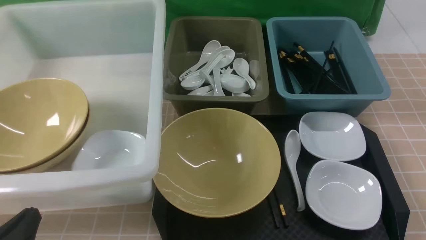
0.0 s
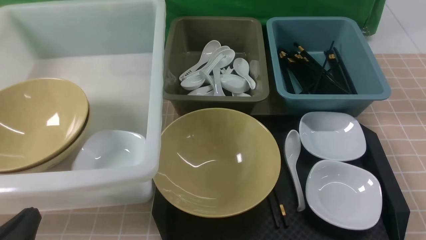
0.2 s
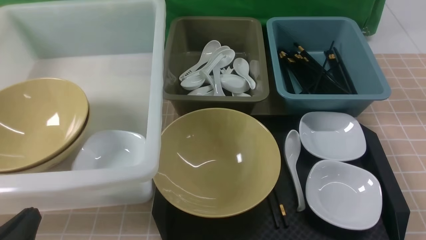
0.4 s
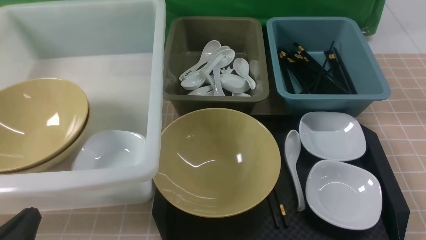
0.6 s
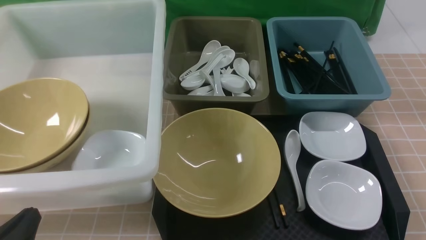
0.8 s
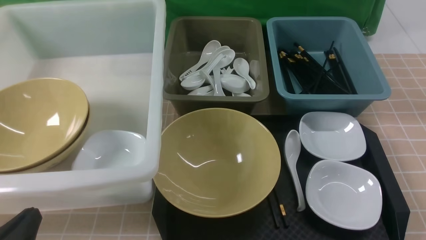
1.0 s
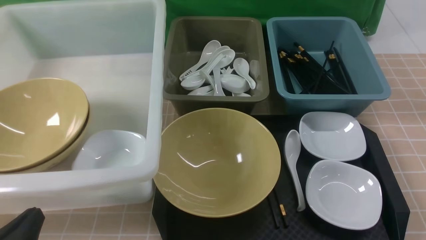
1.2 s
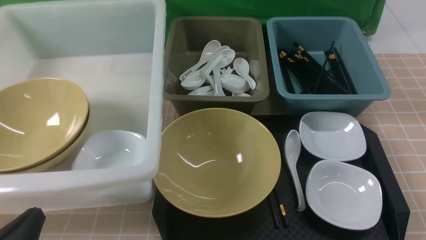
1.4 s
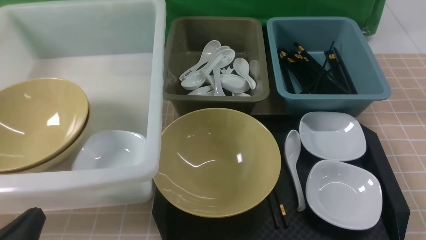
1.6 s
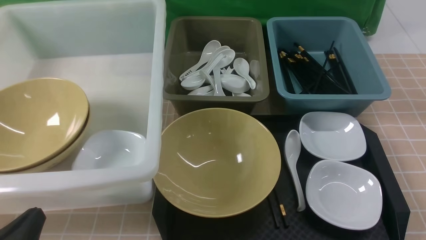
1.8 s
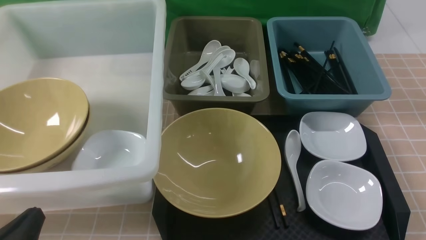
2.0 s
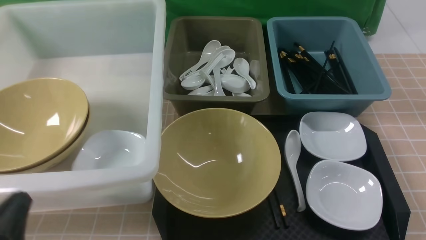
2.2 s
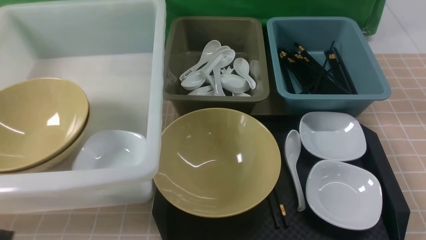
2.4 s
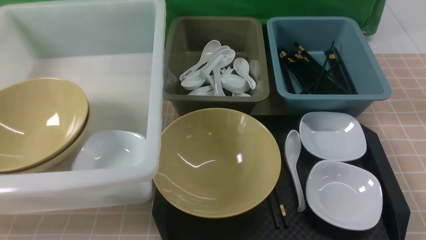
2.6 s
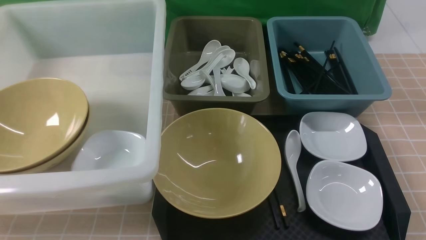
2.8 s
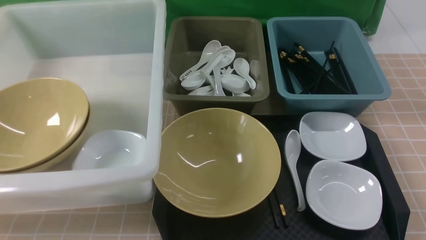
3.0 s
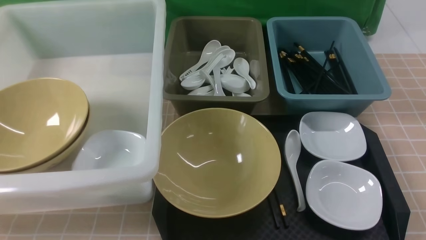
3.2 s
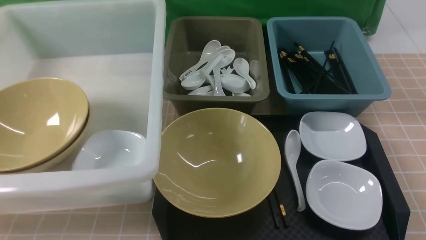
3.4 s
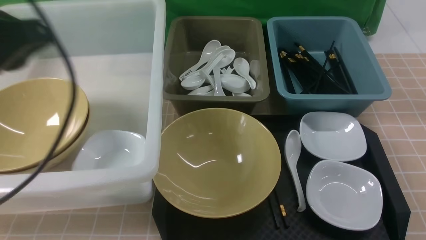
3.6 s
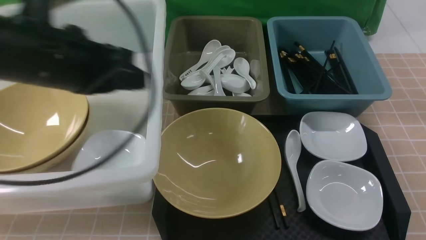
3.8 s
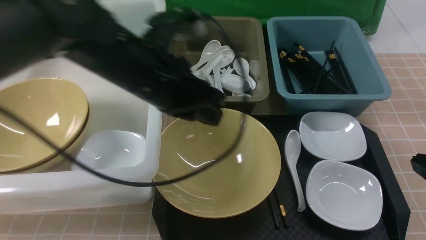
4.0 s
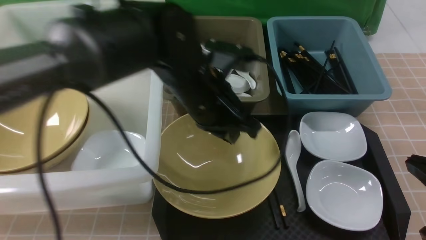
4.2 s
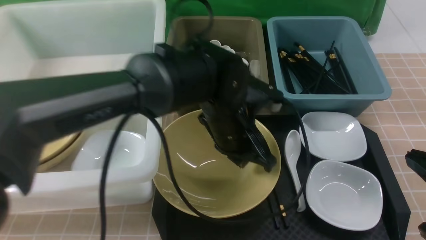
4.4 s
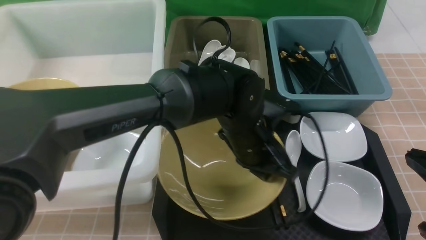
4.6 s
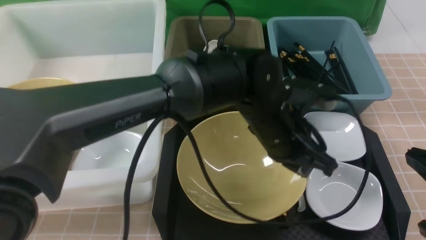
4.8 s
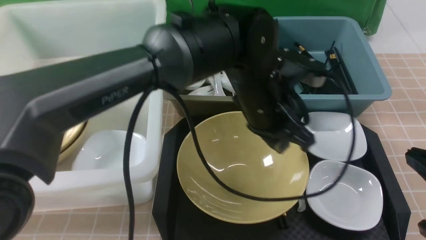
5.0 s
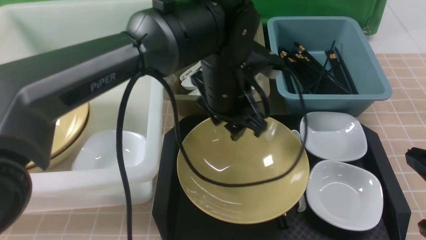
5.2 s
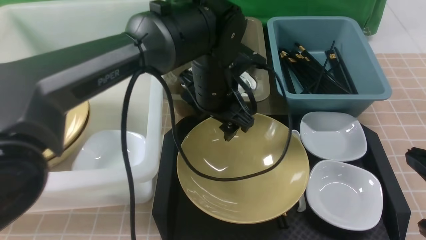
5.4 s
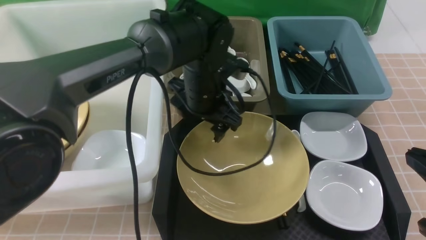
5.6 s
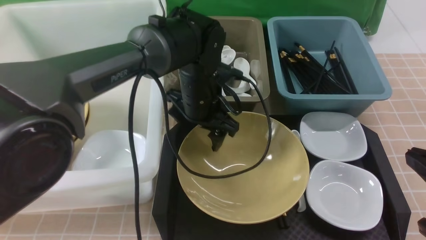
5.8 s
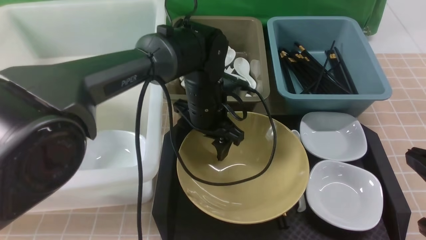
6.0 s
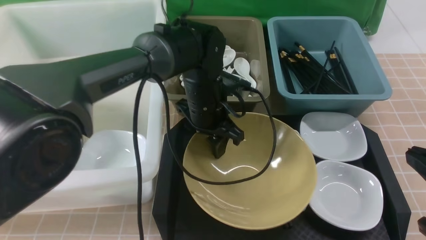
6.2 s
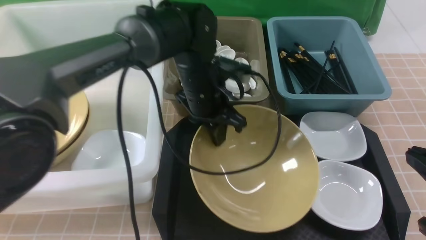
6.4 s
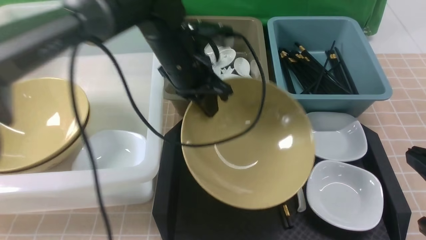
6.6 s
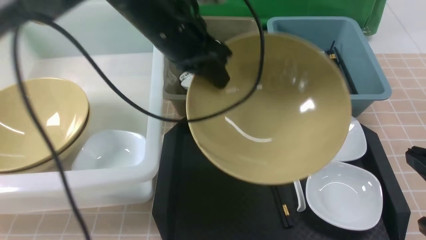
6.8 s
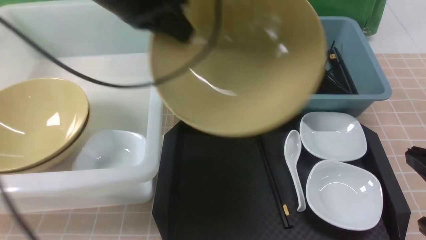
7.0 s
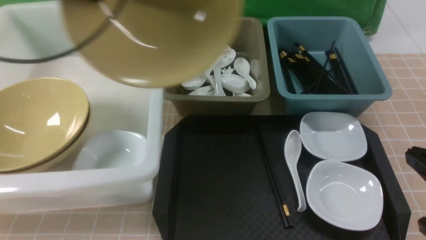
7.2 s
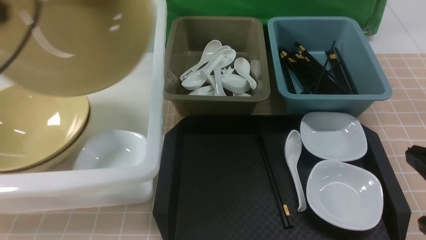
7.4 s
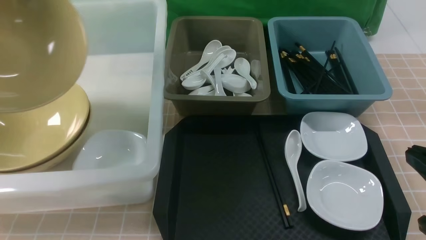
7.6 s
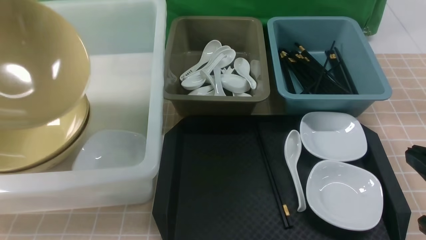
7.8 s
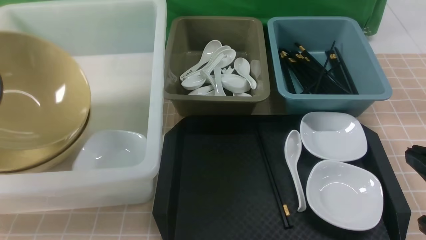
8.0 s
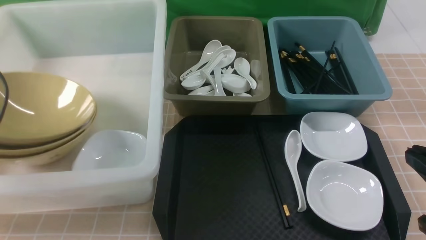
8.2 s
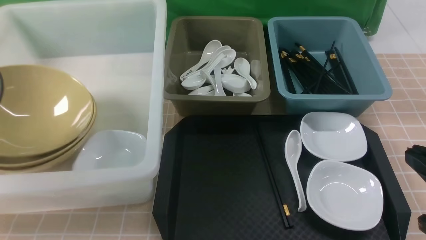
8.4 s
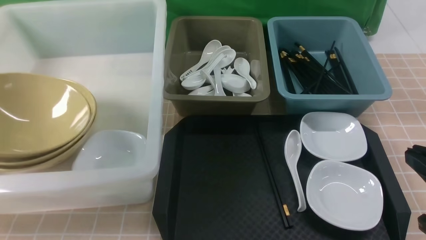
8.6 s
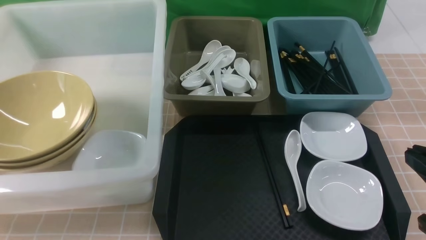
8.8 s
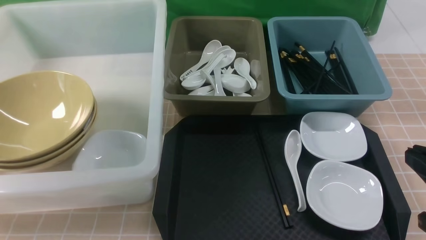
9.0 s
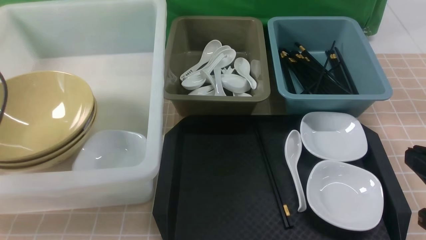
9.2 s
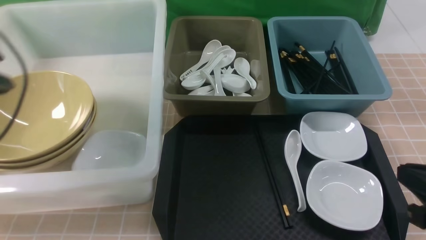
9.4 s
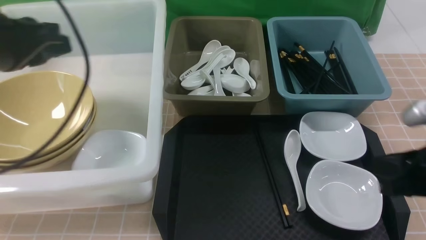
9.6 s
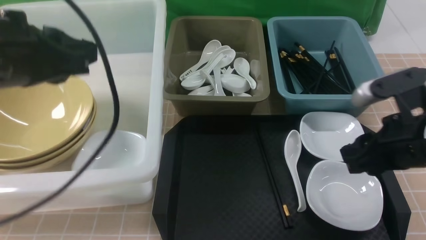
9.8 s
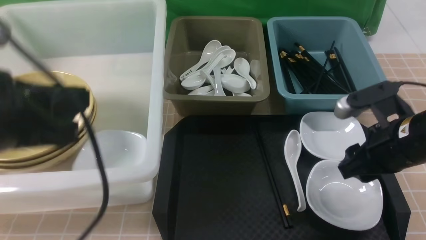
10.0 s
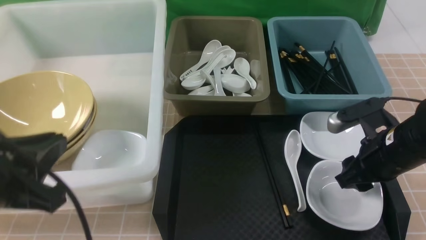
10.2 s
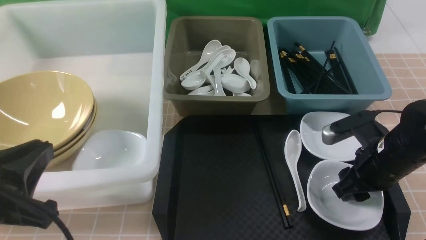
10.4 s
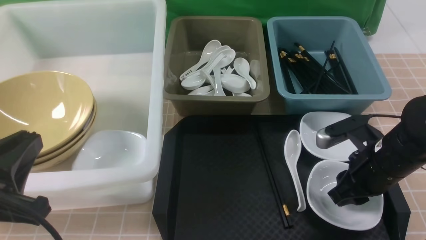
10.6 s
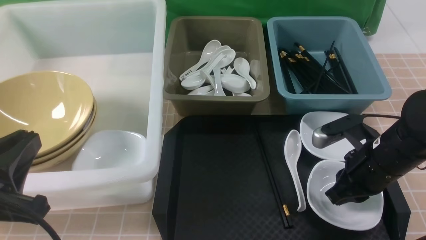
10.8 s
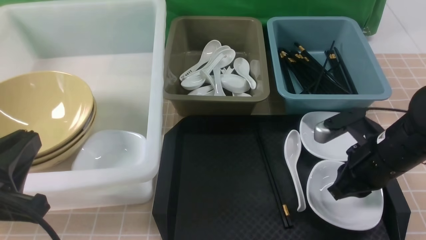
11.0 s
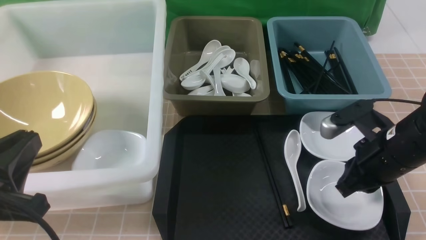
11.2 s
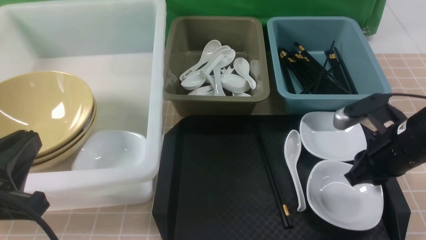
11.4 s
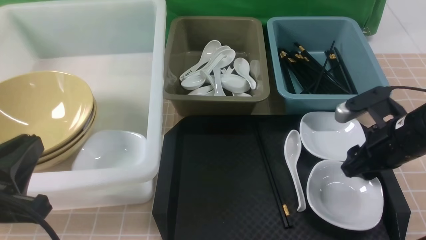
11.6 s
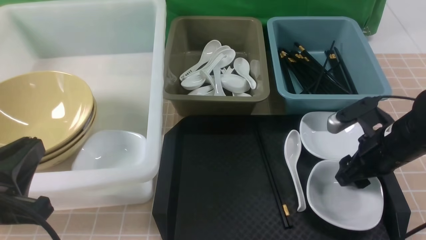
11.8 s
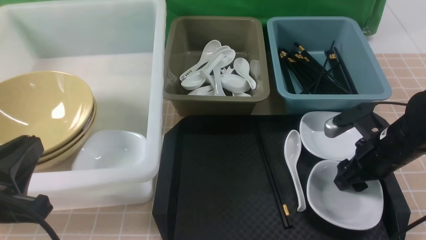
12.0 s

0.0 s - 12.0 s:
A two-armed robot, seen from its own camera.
Task of the whole recording: on brown table put chopsticks spoon bowls plates into blue grey white boxes.
Step, 0.0 s - 6.6 s: use the left arm to grab the yellow noodle bowl on the left.
Step, 7.0 s - 8.6 s: use the left arm to put the noodle bowl into the large storage box on the left.
0.0 s - 1.6 s: Both grippers stay put.
1.6 s - 3.0 s: The left gripper is displaced upward by roughly 15 cm.
3.0 s - 4.4 s: The left gripper is displaced to the right, forward and downward by some 40 cm; the right gripper is displaced forward and downward by roughly 10 cm.
4.4 s - 6.0 s: The left gripper goes about 10 cm forward, and opens up.
6.0 s - 7.6 s: The left gripper moves to the left and upward, some 40 cm, and closes up.
7.6 s - 9.0 s: The left gripper shifts about 5 cm downward, and opens up.
9.0 s - 10.4 s: The right gripper heads forward and downward, covering about 15 cm, and opens; the left gripper shifts some 20 cm backward and to the right.
10.4 s - 12.0 s: The right gripper closes and opens again.

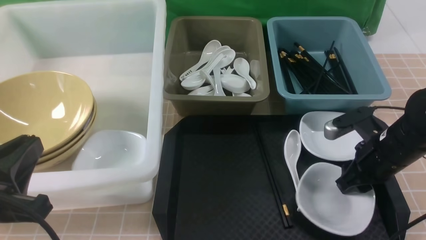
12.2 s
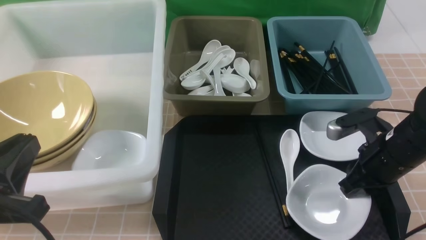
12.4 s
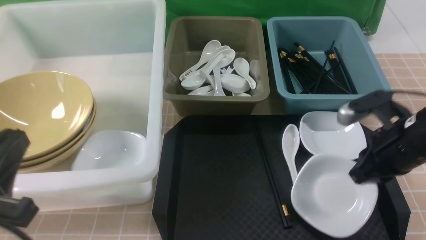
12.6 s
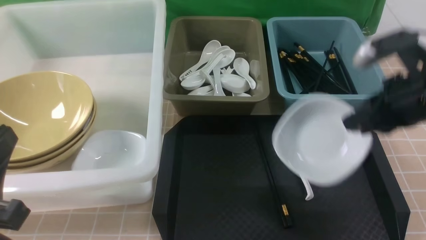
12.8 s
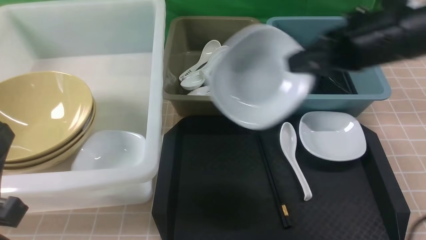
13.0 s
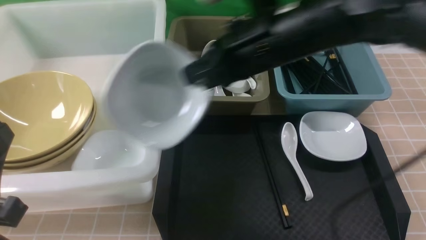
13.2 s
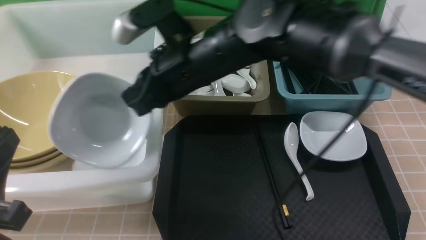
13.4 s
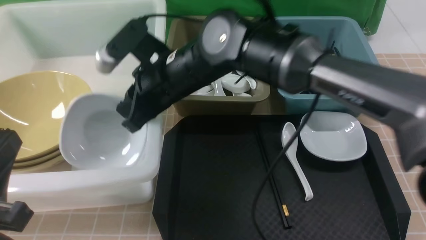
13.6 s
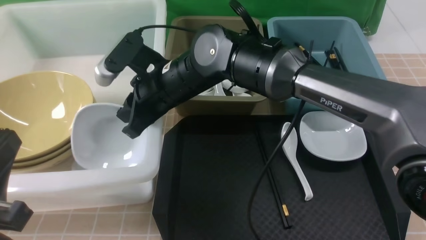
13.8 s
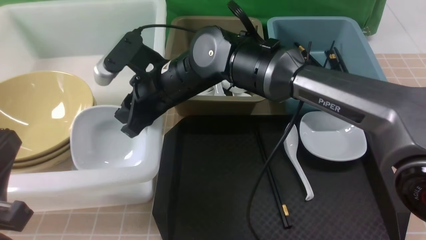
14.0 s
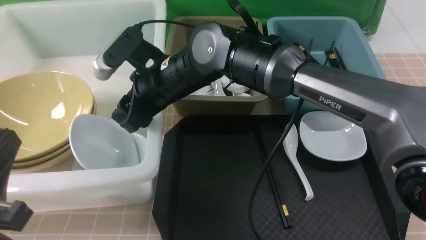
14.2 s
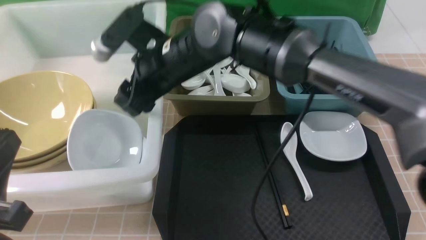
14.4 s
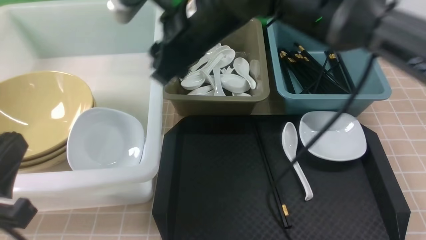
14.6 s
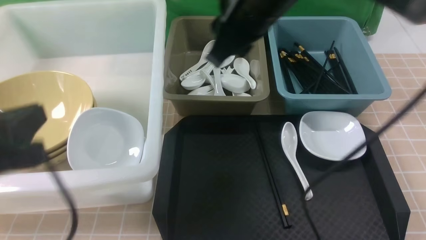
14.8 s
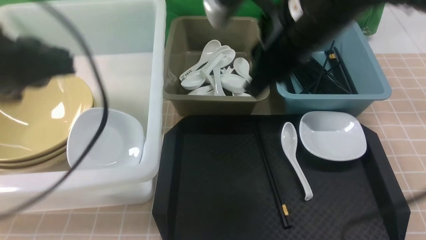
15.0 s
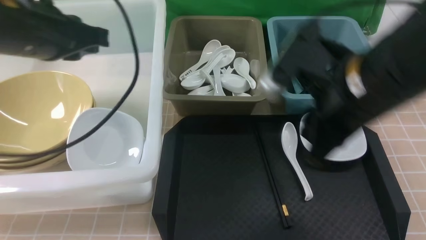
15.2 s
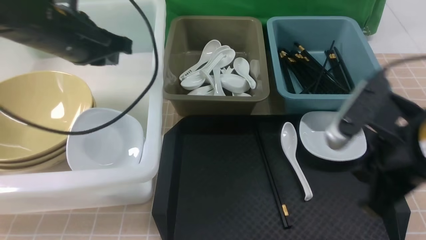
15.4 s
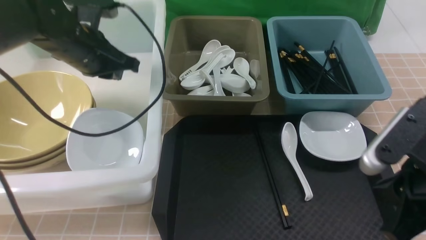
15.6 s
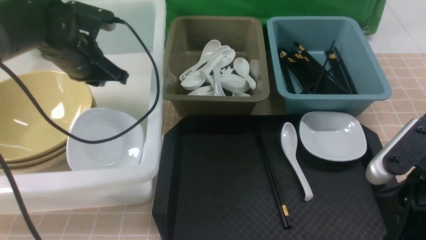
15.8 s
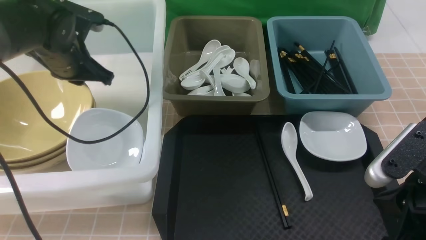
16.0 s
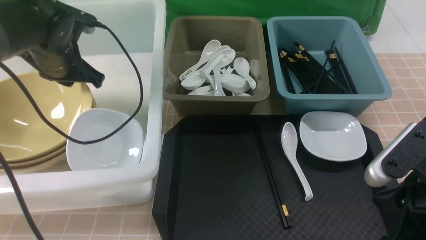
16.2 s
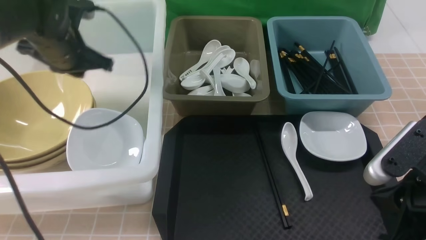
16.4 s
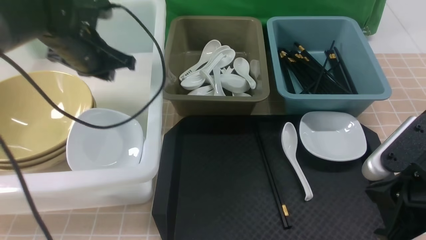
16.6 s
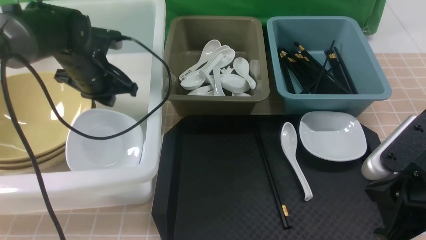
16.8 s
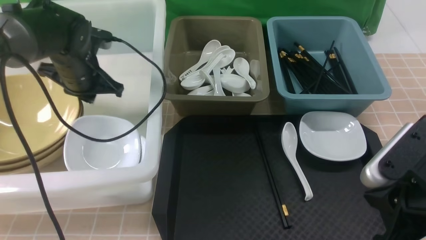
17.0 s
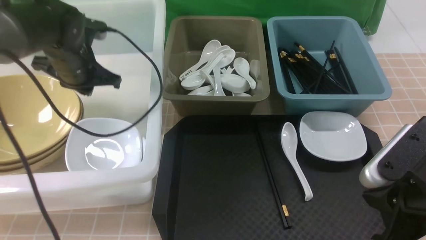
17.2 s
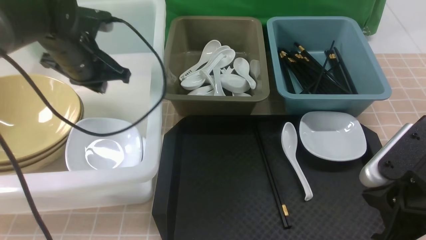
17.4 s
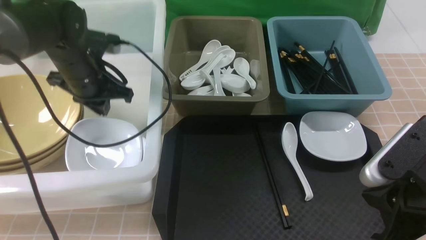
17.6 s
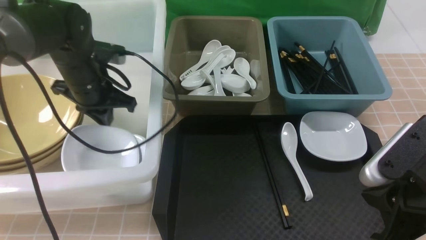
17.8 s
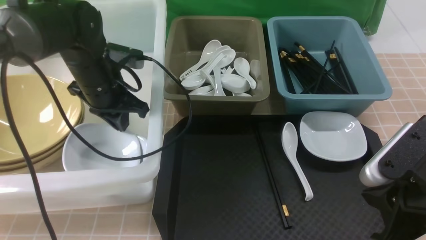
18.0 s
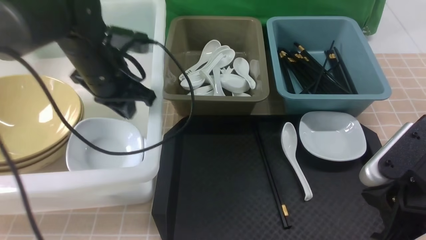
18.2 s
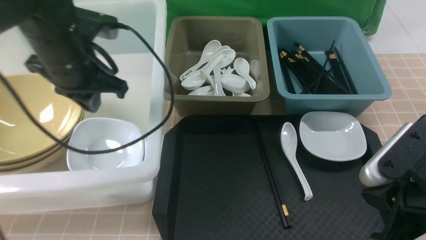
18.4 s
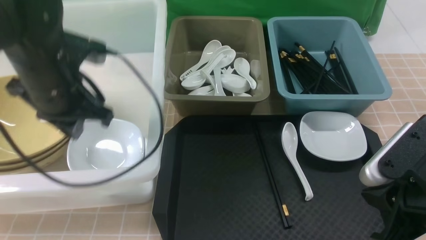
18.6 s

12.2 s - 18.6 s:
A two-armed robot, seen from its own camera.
Task of the whole recording: on brown table put chopsticks spoon bowls plates into blue grey white boxes.
12.2 s - 13.8 s: The right gripper heads to the left, covering about 30 cm, and closes its fingers.
13.8 s - 15.4 s: The left gripper travels forward by roughly 30 cm, while the right gripper moves to the right and backward, some 30 cm, and opens, then closes once more.
15.4 s - 17.0 s: The right gripper changes place by approximately 5 cm. Meanwhile the left gripper heads downward and forward, covering approximately 10 cm.
17.0 s - 18.6 s: The left gripper heads backward, covering roughly 10 cm.
